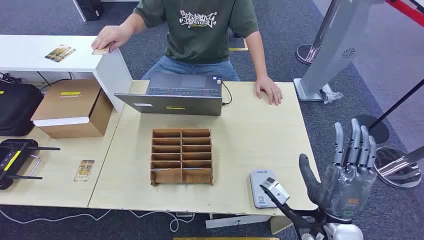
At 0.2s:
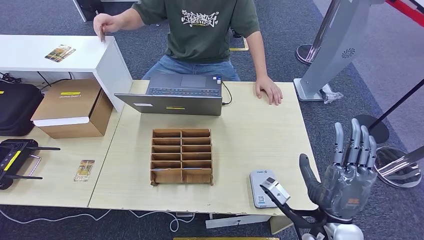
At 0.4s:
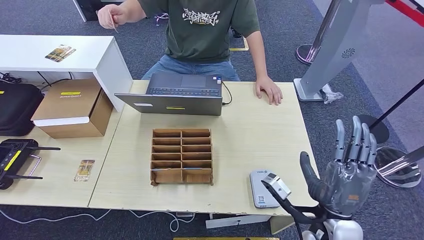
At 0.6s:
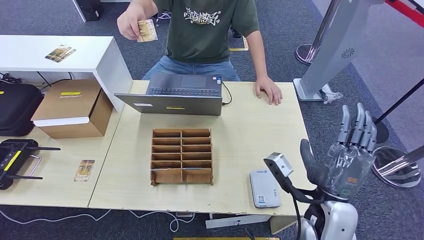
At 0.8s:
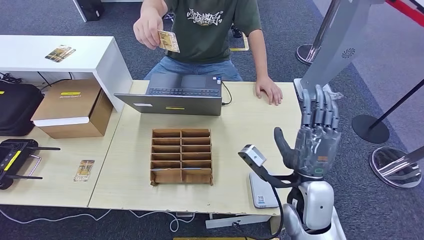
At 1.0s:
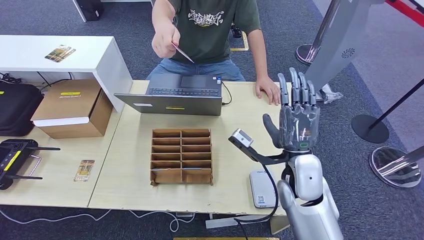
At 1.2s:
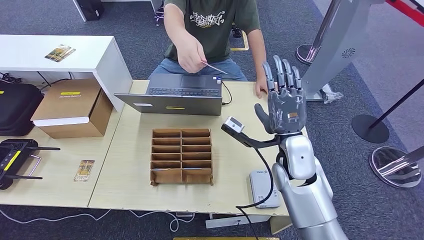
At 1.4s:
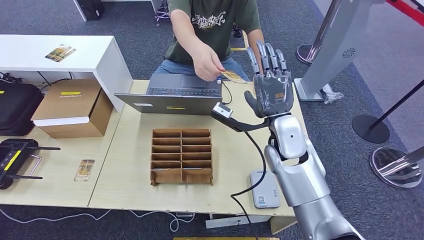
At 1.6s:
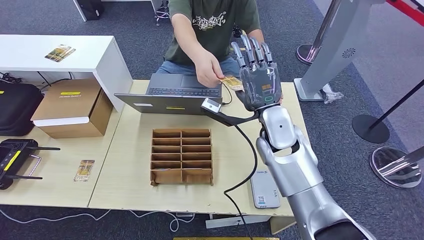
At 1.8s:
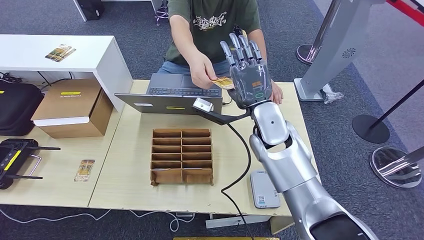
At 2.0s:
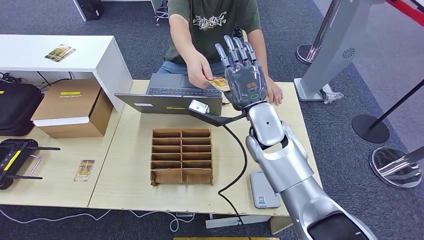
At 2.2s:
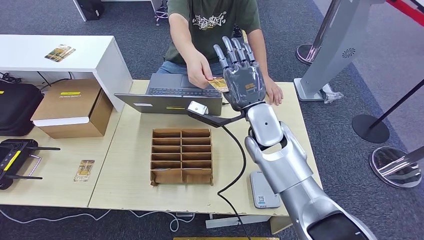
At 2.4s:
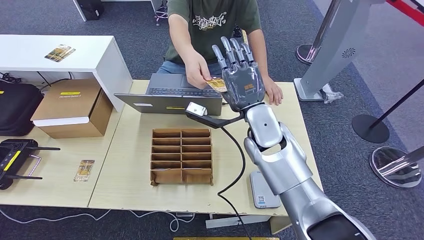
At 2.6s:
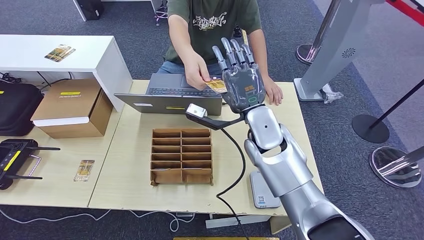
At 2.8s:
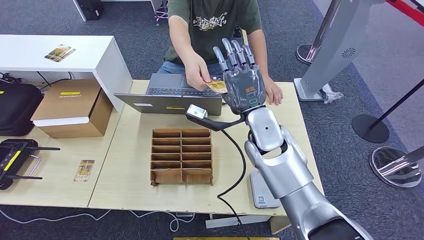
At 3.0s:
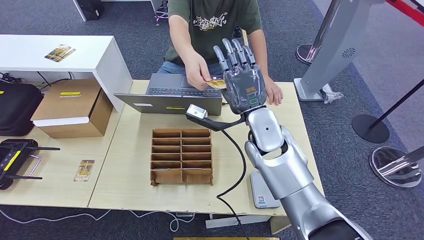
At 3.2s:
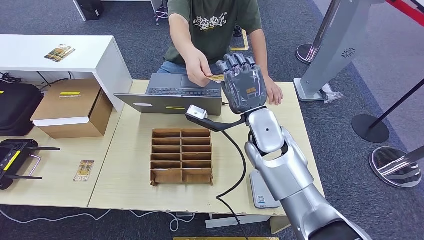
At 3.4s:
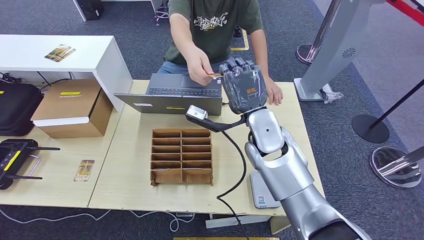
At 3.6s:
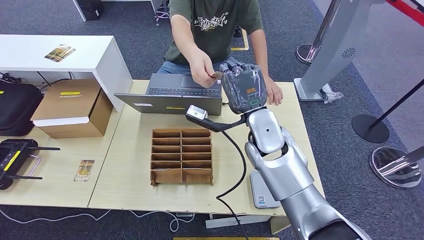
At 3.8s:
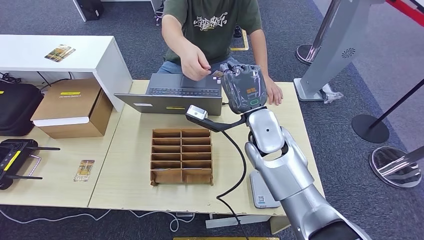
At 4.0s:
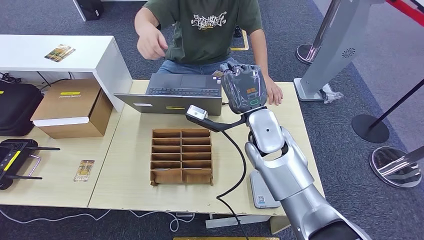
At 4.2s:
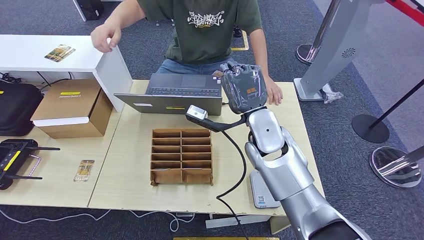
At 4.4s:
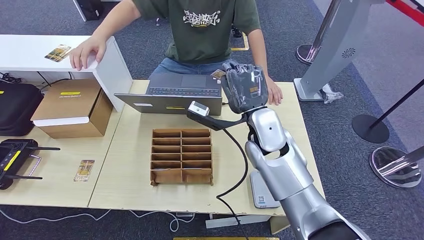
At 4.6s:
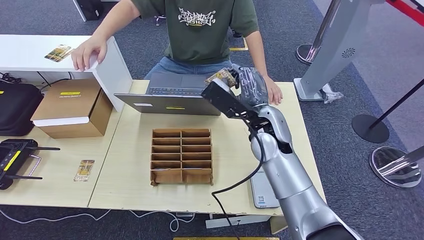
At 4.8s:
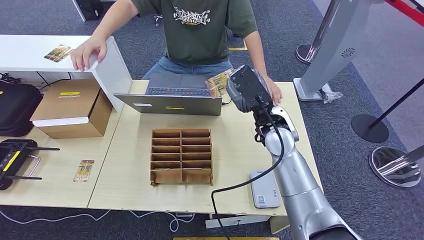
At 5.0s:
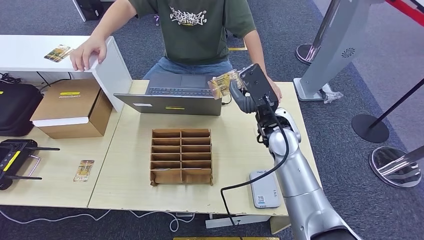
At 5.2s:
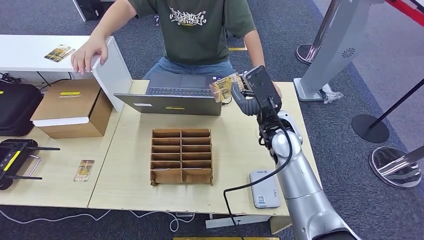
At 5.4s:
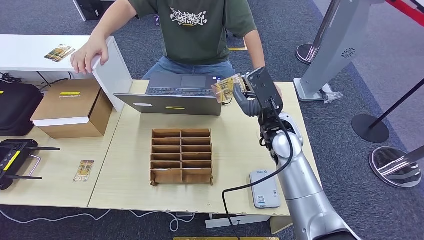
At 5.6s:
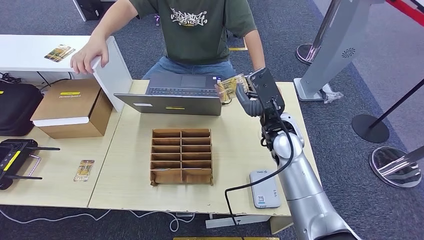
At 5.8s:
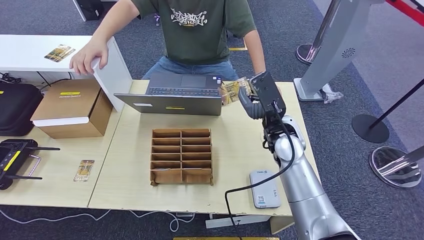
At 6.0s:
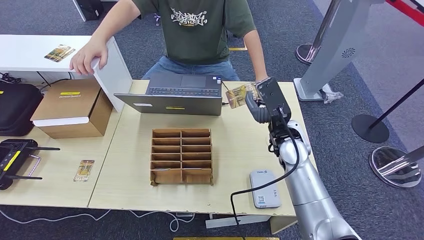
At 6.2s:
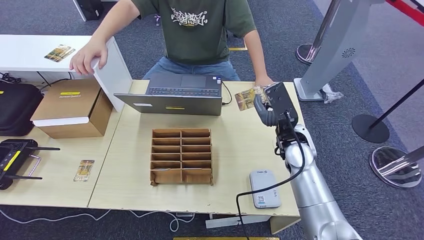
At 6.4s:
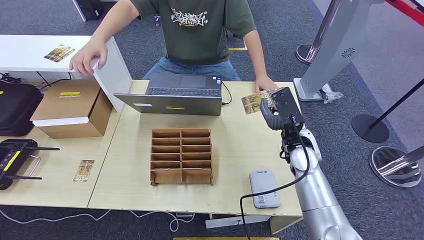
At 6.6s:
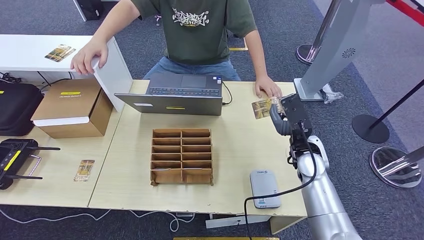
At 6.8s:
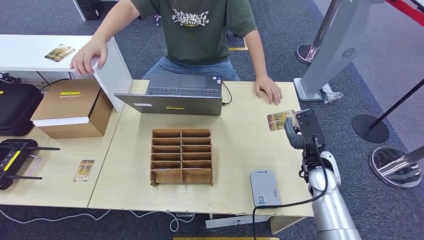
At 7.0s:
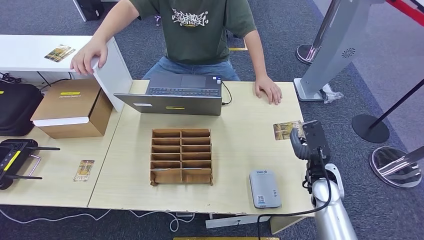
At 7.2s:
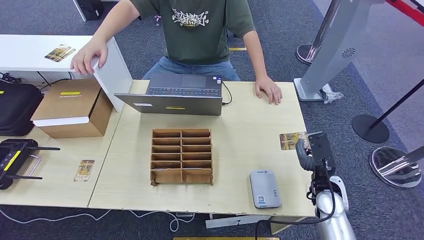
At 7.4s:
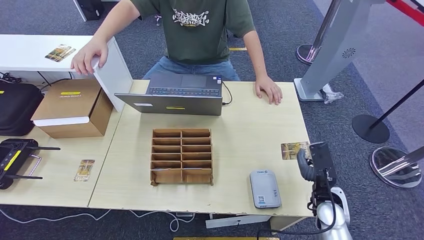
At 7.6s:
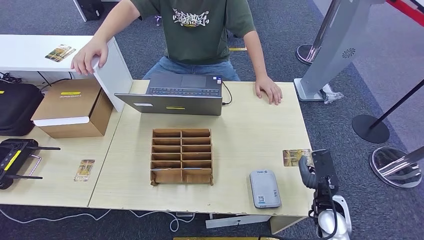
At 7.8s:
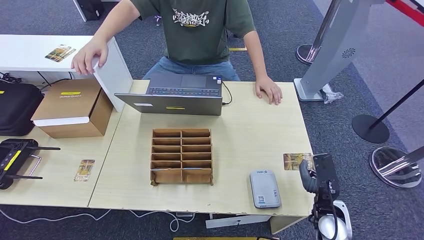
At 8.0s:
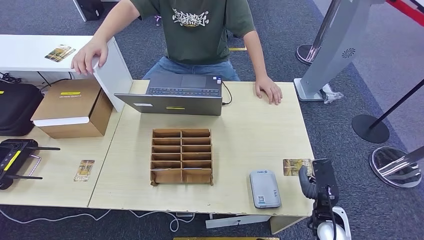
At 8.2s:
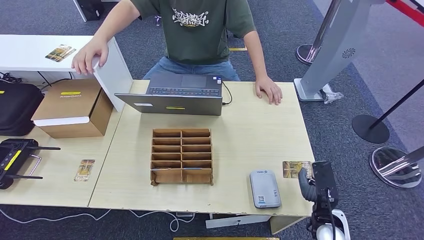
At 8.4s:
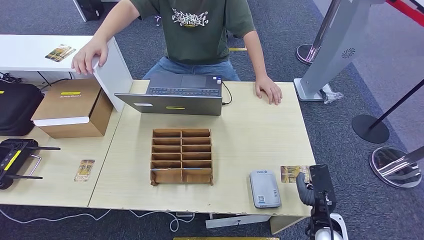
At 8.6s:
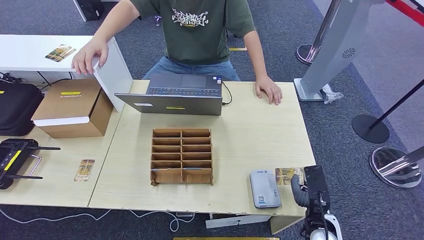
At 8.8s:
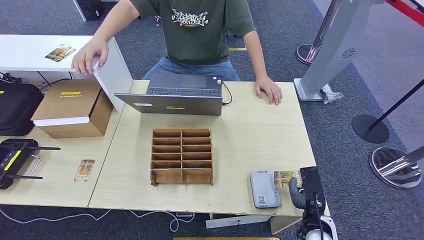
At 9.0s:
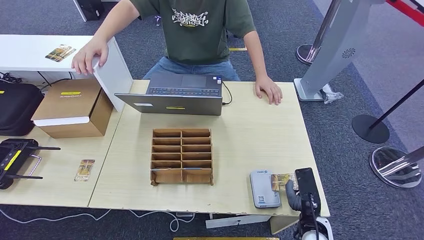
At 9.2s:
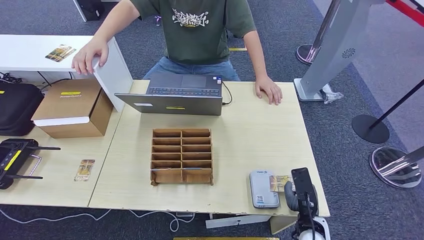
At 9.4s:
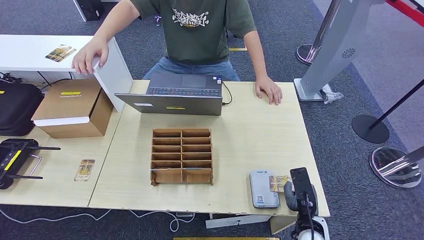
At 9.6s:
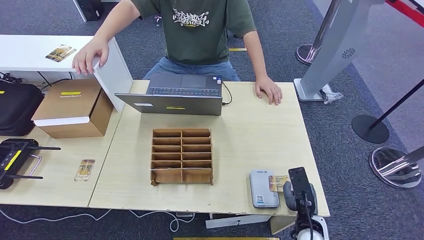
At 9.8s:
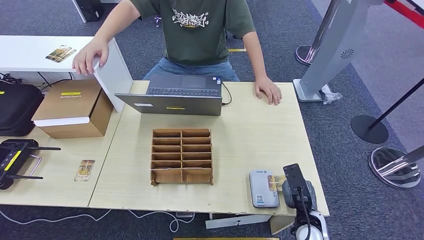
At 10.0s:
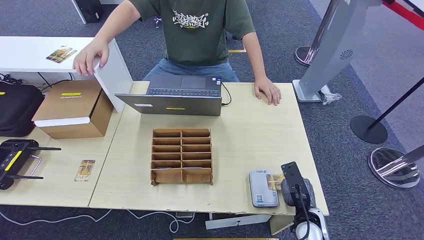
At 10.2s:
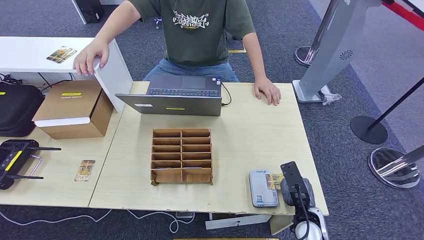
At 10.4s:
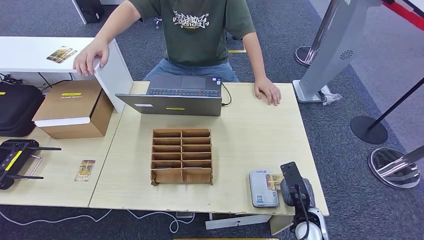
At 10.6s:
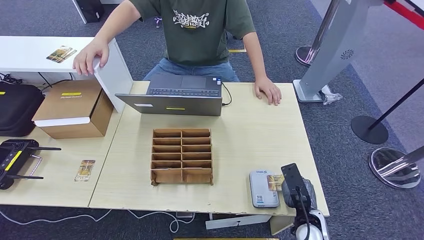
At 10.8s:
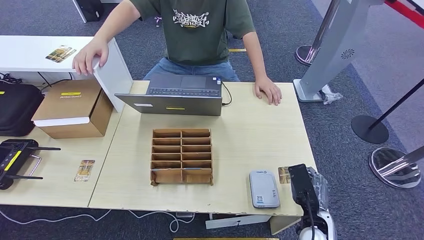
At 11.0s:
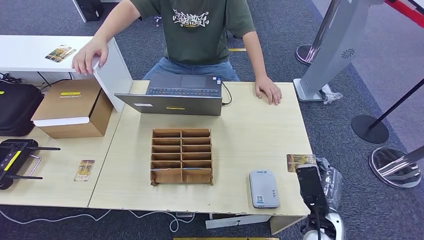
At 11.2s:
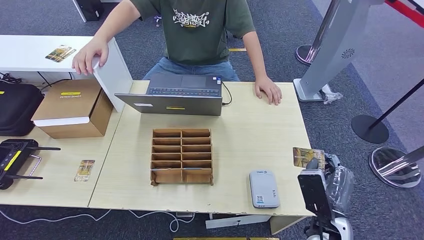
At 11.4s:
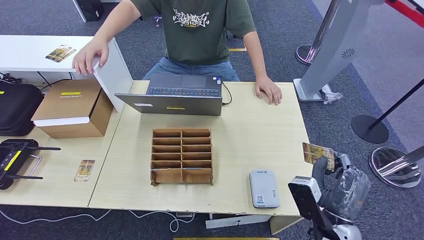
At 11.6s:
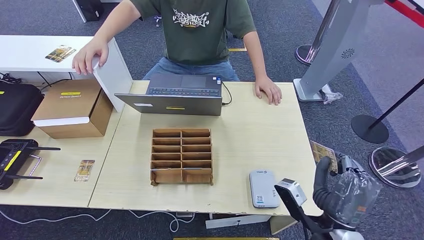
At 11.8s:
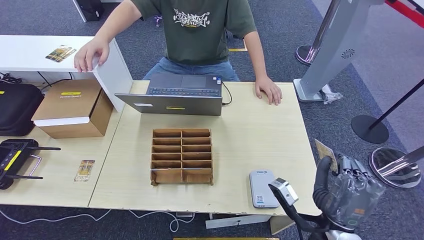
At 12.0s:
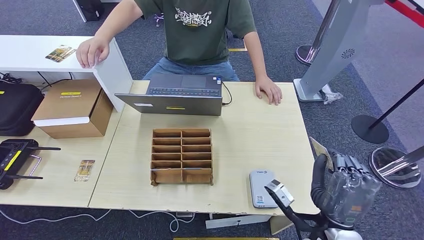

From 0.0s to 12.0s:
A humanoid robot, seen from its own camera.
Step, from 0.0s to 4.0s: Take the ID card from the person's hand.
Step, from 4.4s to 9.6s: Place the ID card on the card reader.
From 1.6s to 4.4s: The hands move only a little.
From 4.4s to 6.0s: The right hand is displaced to the right by approximately 5 cm.
From 6.0s to 7.6s: The right hand is displaced backward, downward and to the right by about 25 cm.
From 7.6s to 9.0s: The right hand changes place by some 5 cm.
From 9.0s to 10.4s: There are only small adjustments of the hands.
From 10.4s to 12.0s: The right hand goes approximately 10 cm upward.

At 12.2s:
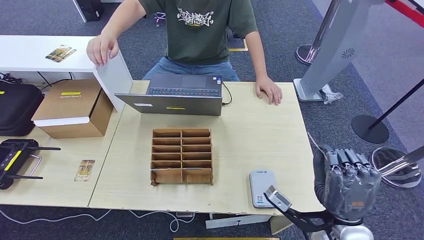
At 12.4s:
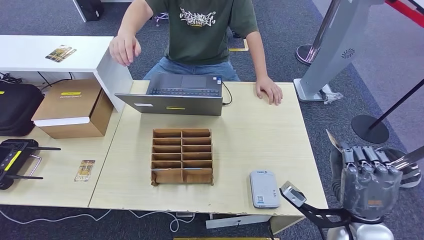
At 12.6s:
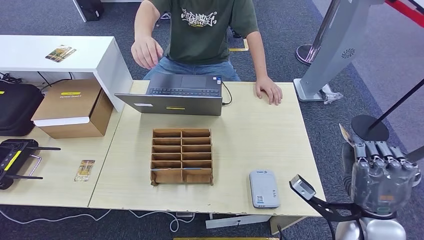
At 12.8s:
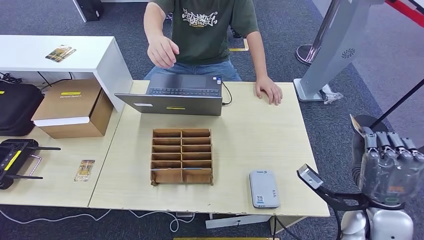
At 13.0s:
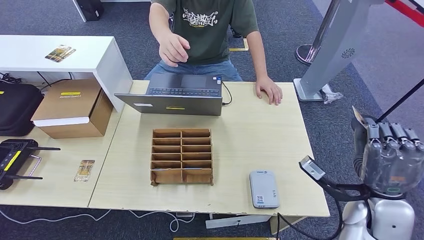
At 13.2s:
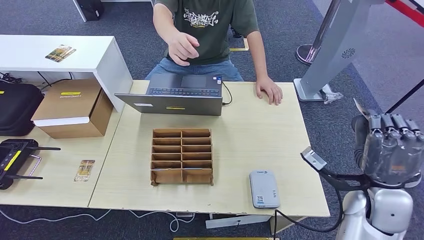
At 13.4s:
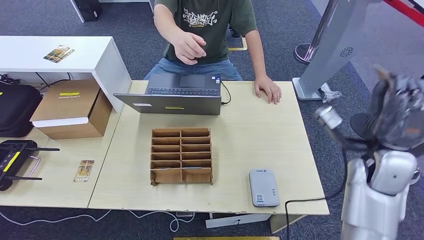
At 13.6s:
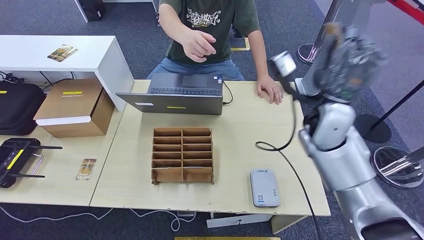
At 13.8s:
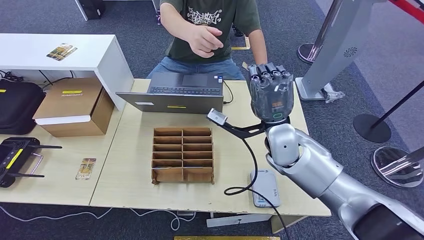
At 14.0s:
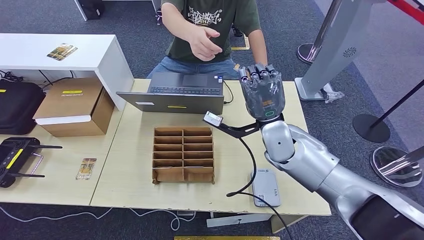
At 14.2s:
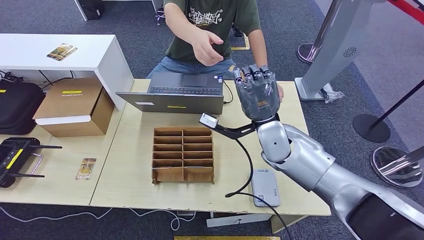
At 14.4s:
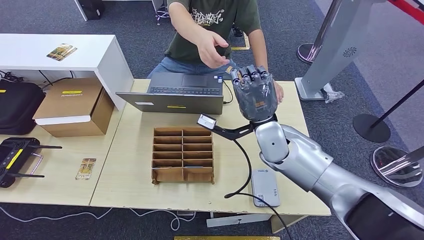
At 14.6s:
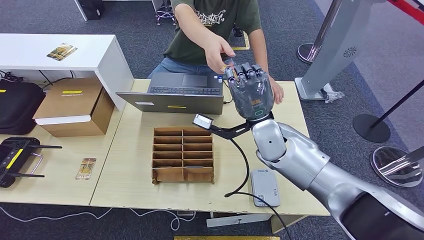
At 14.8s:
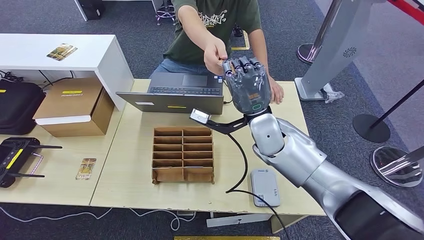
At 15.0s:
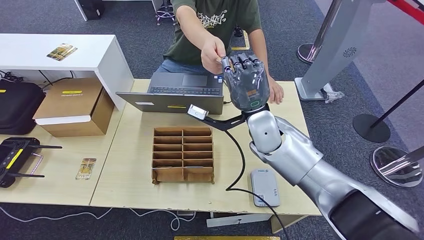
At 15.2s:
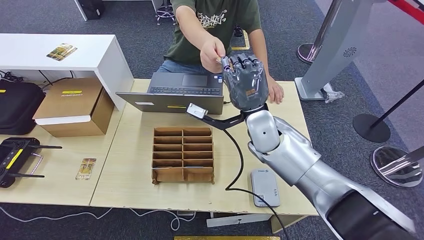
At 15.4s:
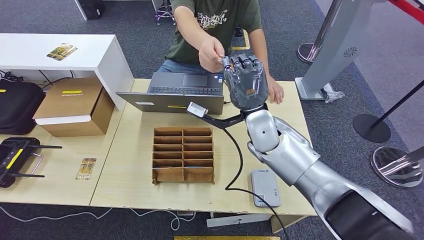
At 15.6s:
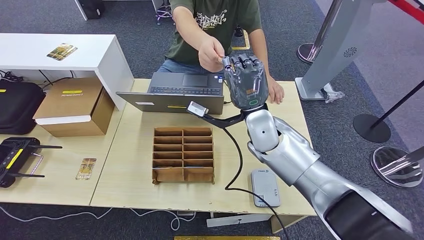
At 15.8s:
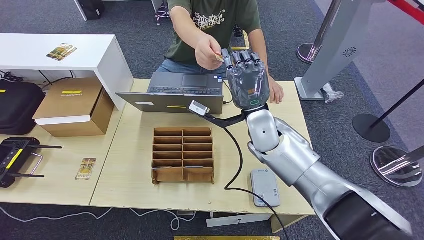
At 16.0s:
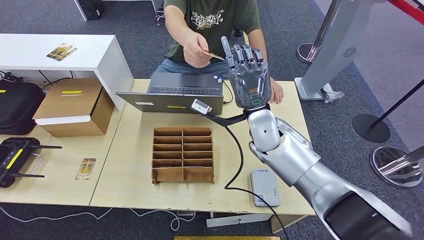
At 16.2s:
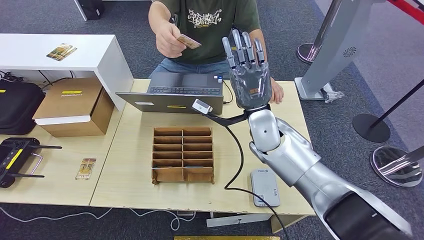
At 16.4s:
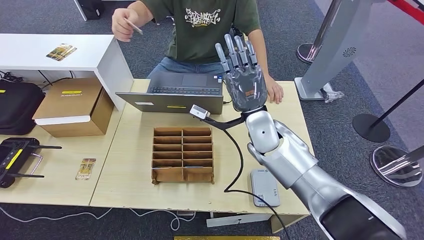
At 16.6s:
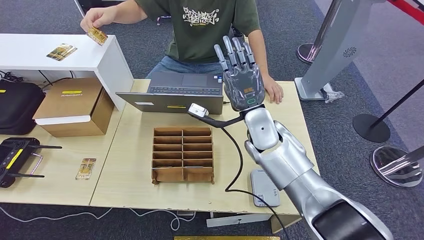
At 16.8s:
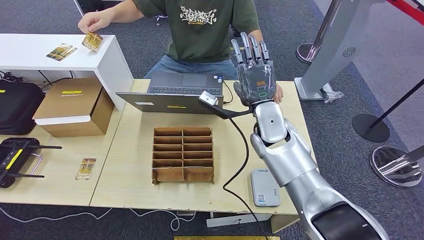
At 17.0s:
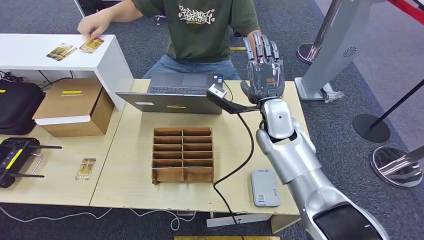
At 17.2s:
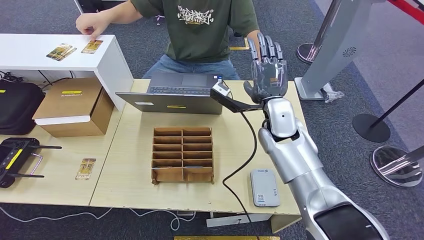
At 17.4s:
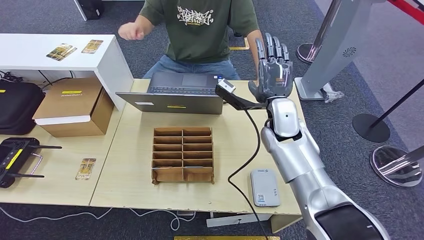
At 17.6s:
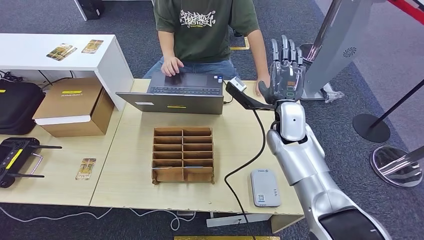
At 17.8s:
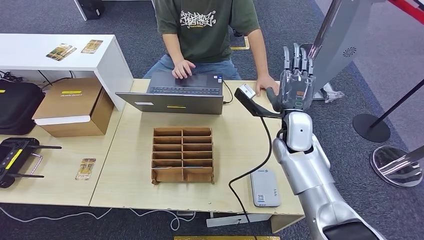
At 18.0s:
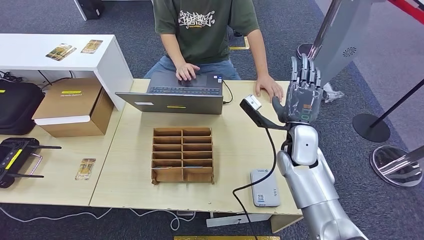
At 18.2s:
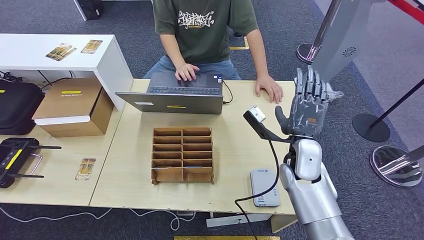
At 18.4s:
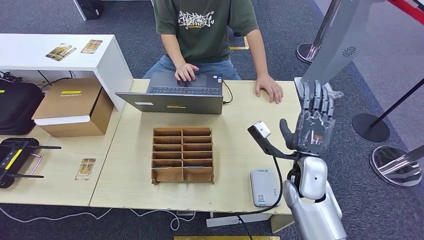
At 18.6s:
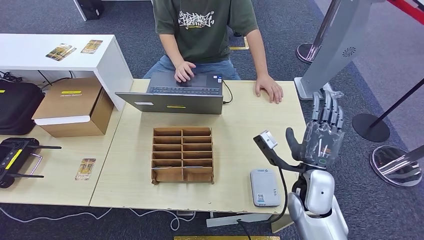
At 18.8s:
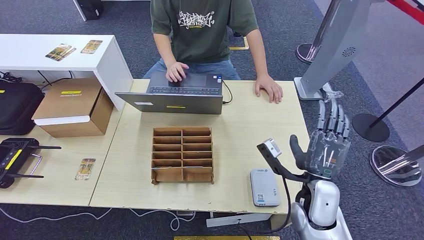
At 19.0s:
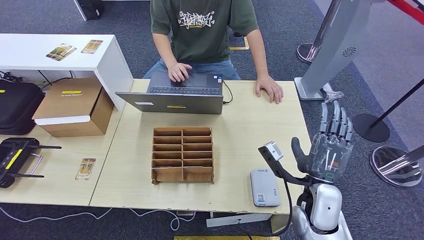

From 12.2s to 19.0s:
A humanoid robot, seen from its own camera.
Step, from 12.2s to 16.4s: Hand the ID card to the person.
From 15.0s to 16.2s: The hands stay close to where they were, moving slightly.
From 16.2s to 17.6s: The right hand heads to the right, covering some 5 cm.
From 17.6s to 19.0s: The right hand travels backward and downward by approximately 20 cm.
